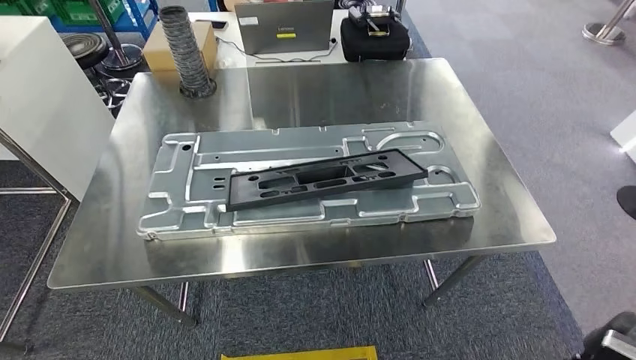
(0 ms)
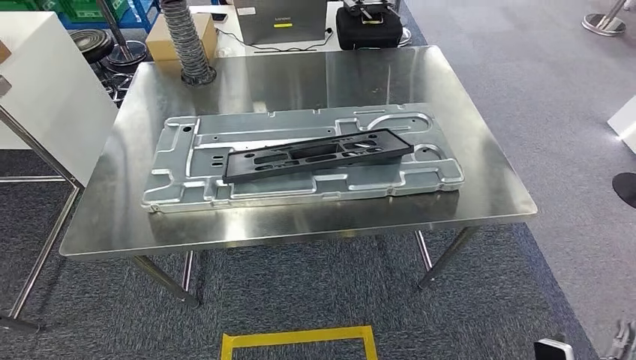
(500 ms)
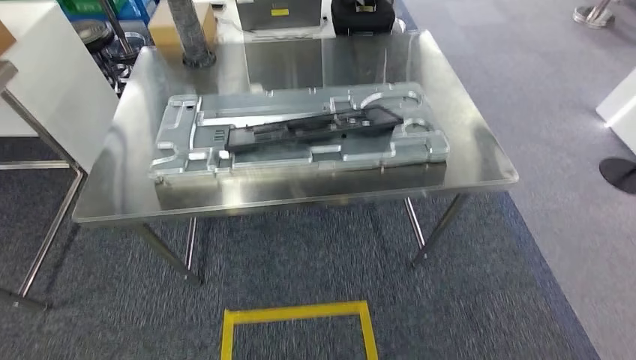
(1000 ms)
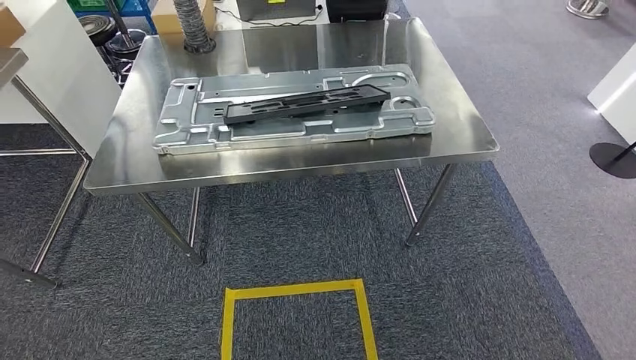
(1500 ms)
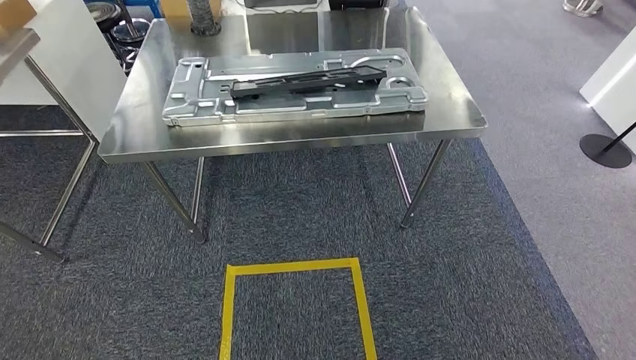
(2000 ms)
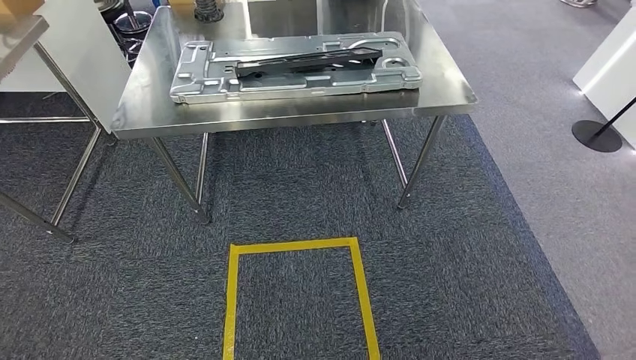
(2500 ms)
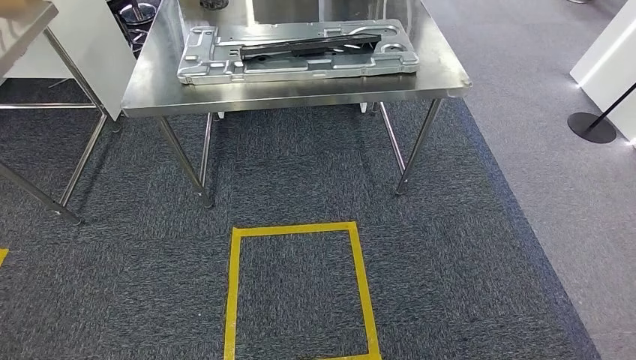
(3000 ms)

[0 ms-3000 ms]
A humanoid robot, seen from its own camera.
Step, 0 ms to 3000 ms: Return to the initial position at the workbench.

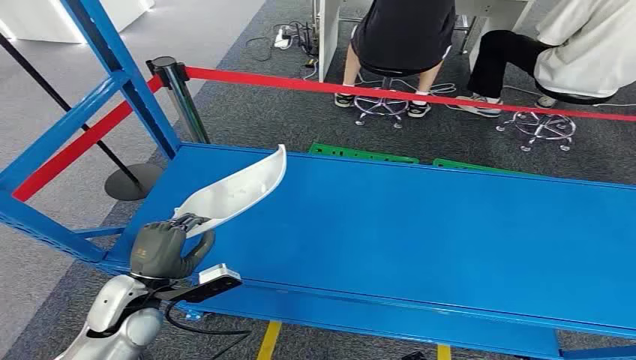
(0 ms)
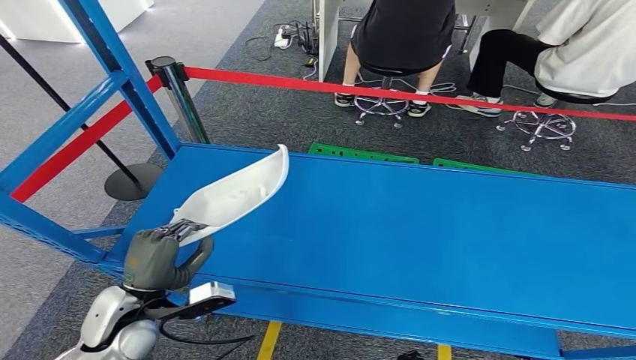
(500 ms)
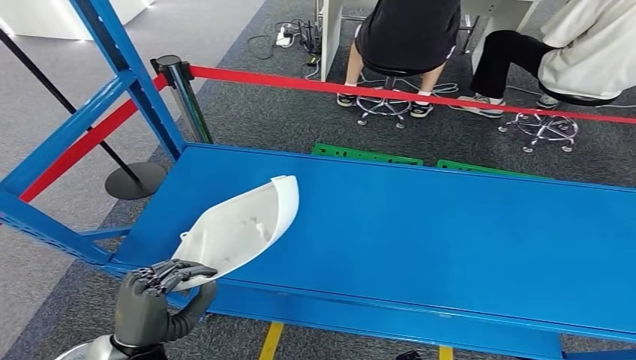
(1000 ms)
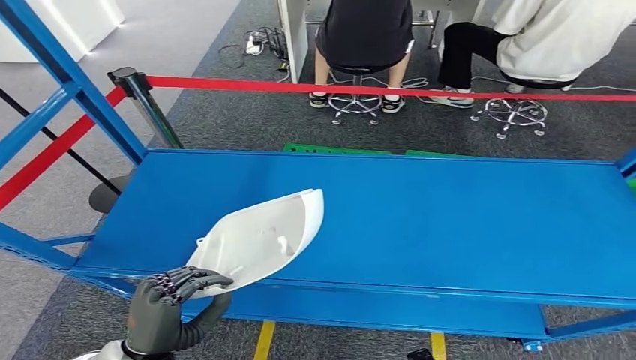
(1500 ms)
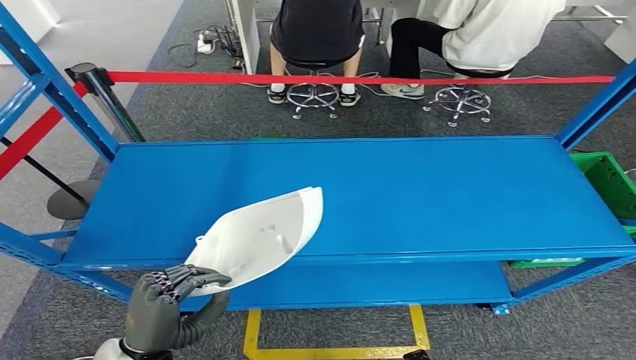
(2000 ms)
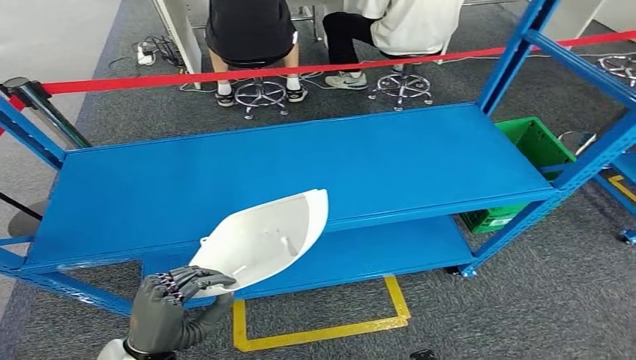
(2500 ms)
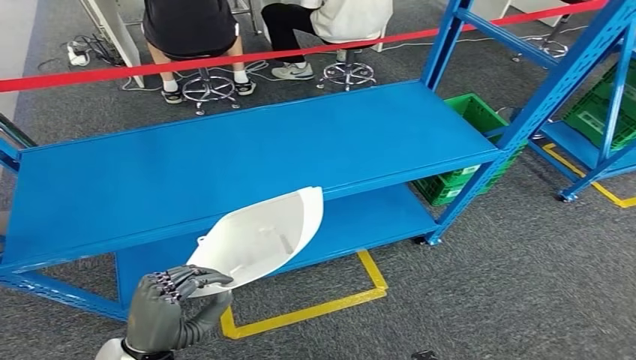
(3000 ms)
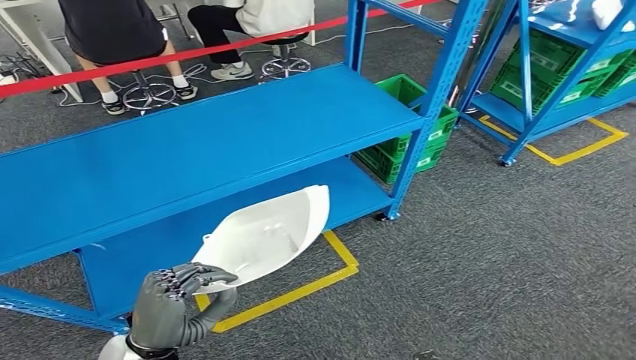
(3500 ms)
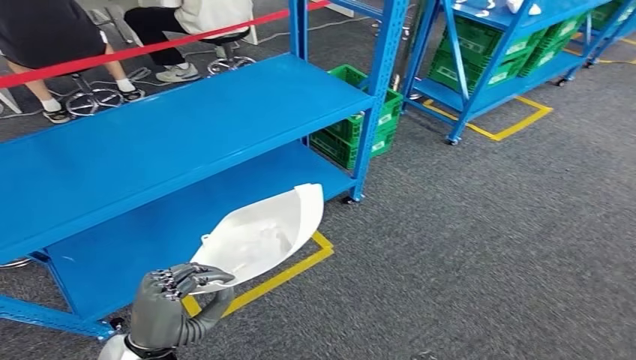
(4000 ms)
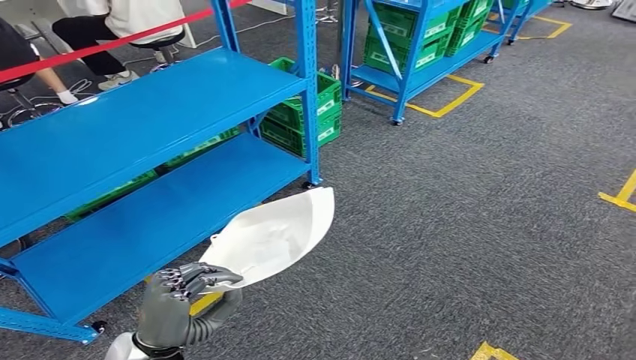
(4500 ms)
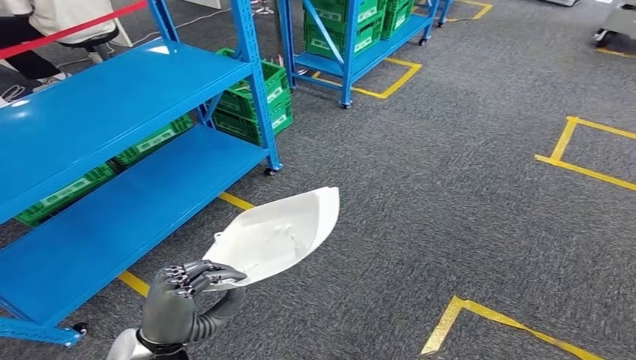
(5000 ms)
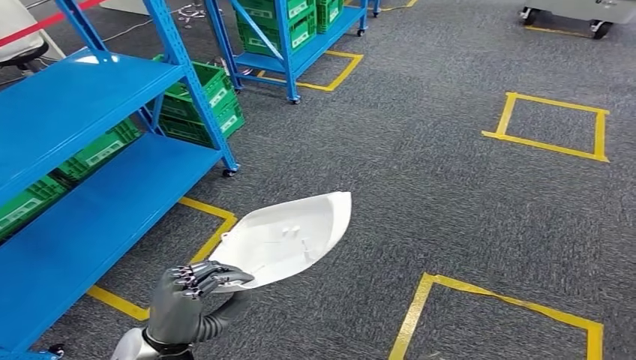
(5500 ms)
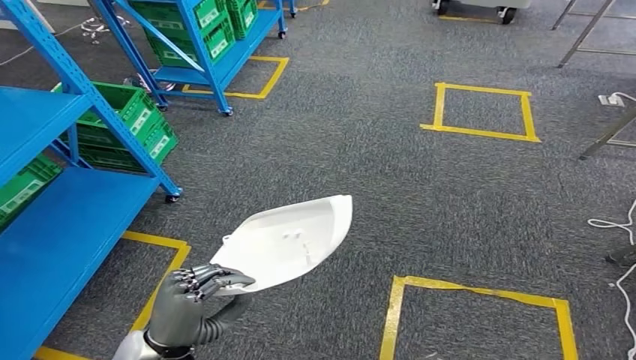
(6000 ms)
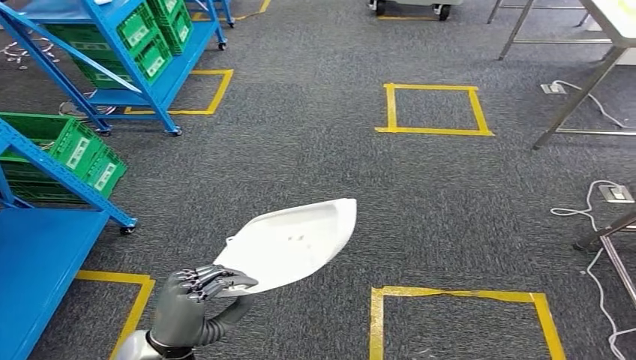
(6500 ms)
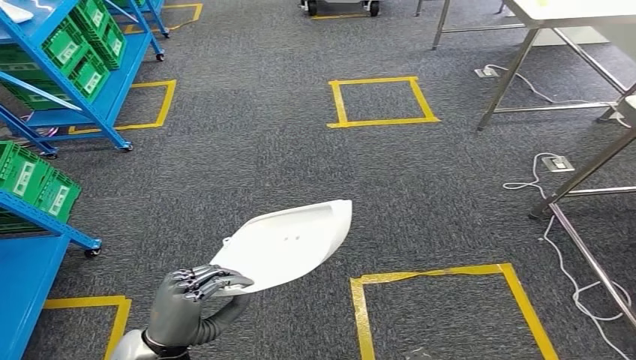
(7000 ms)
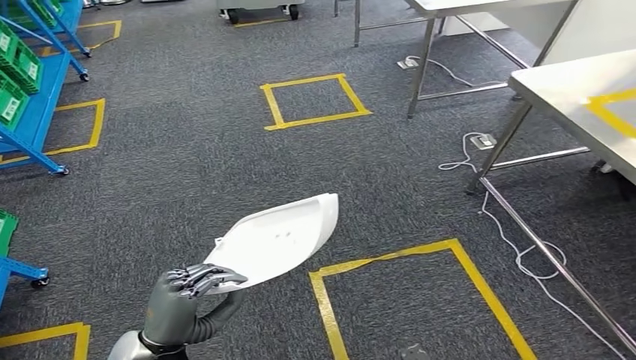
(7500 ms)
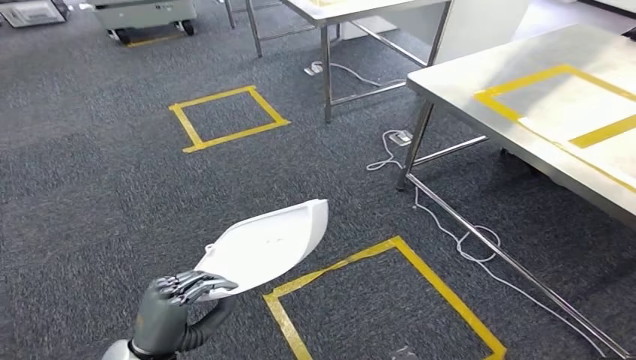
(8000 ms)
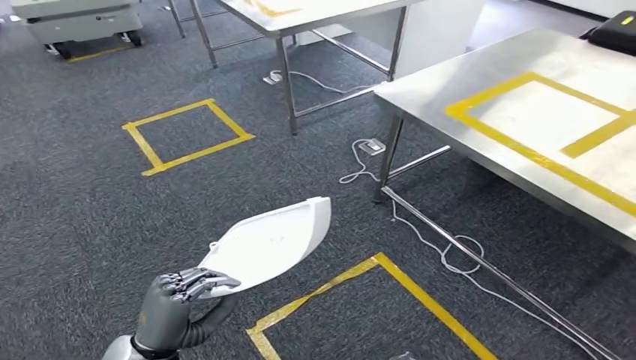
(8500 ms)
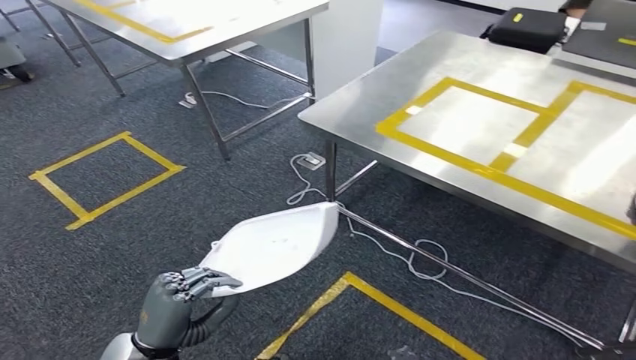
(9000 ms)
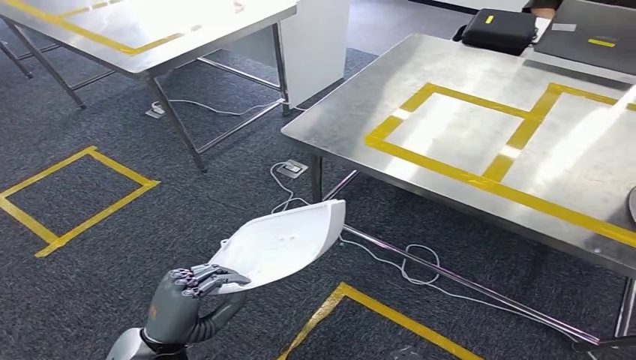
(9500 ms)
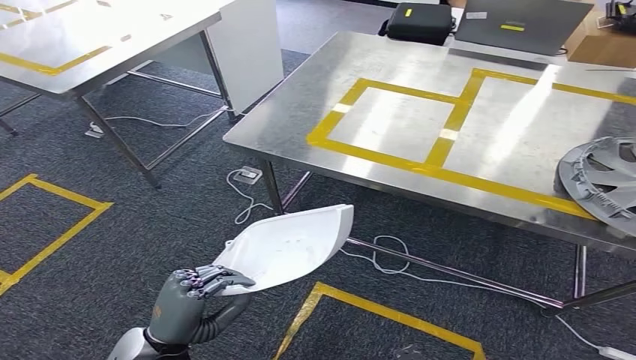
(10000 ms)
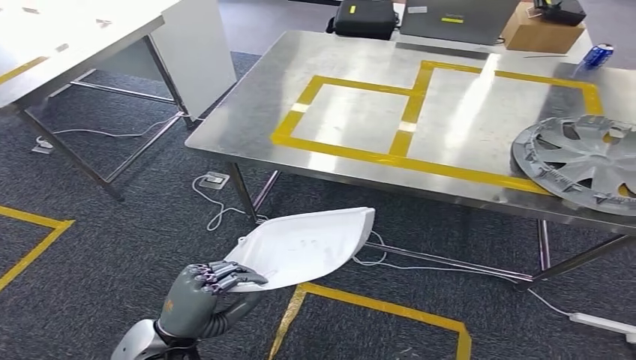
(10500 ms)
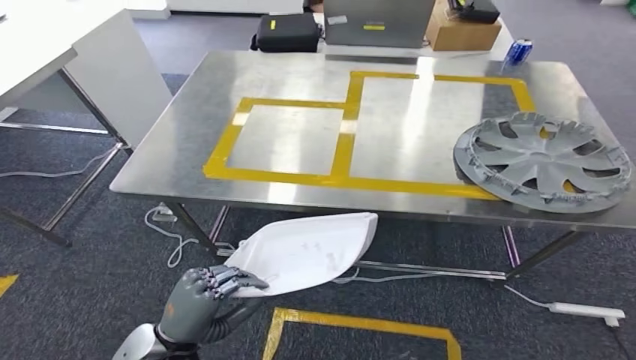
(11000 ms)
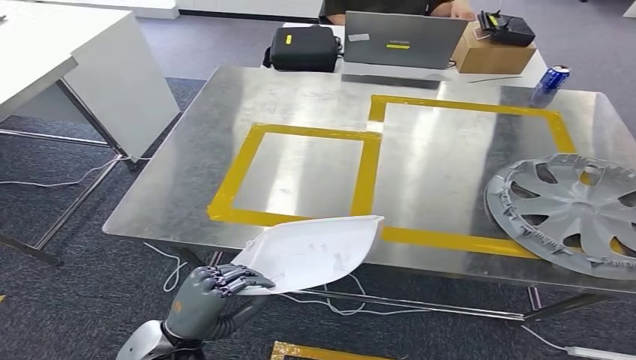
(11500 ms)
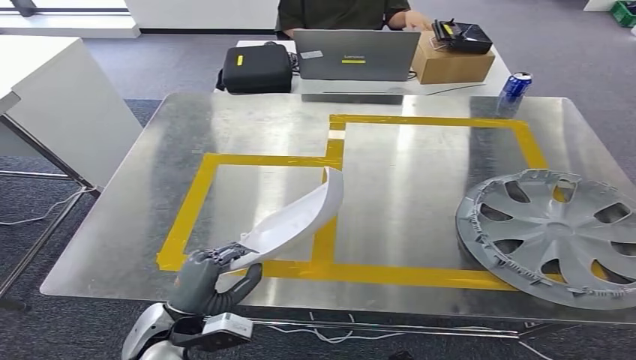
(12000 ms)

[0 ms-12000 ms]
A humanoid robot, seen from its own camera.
Step, 0 ms to 1500 ms: Pick up the small component from the shelf.
Step, 2000 ms to 11000 ms: Move the small component to the workbench.

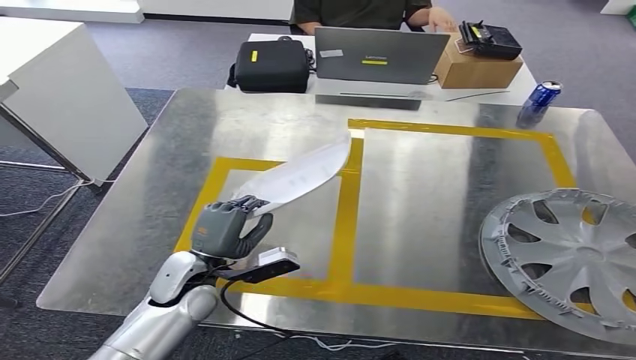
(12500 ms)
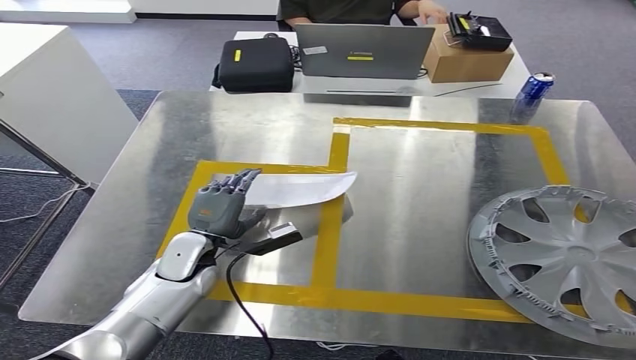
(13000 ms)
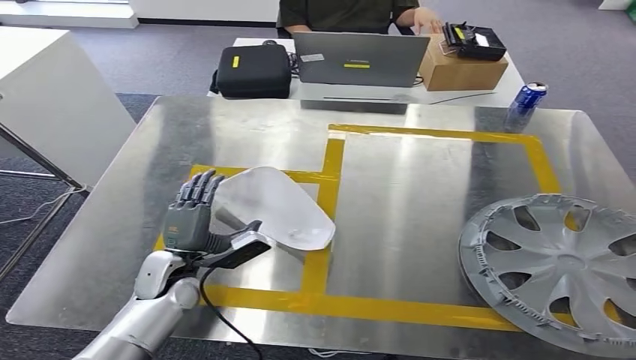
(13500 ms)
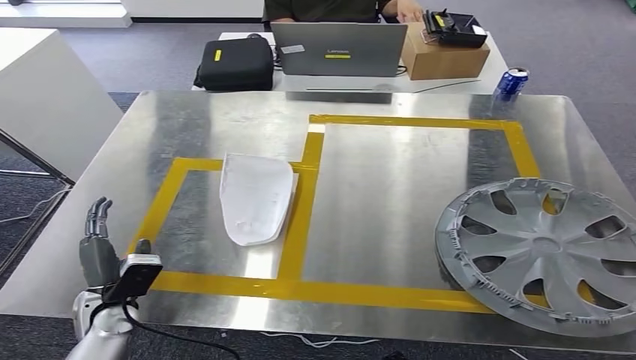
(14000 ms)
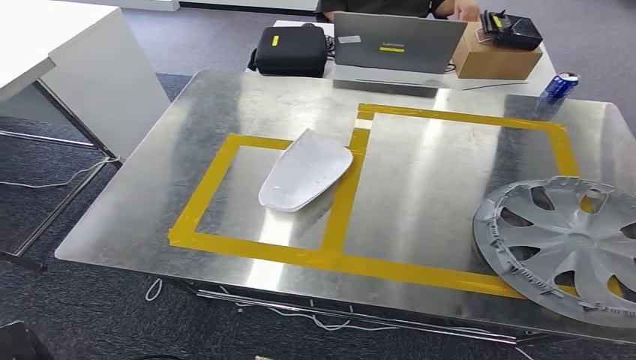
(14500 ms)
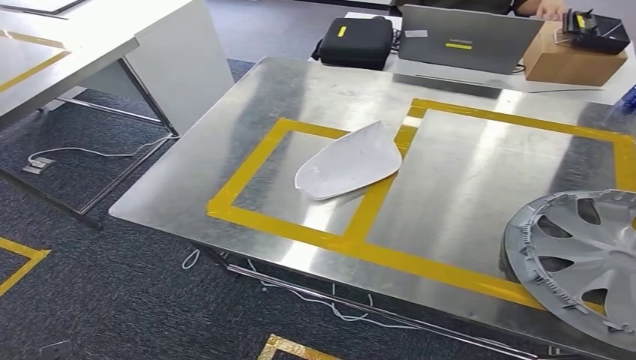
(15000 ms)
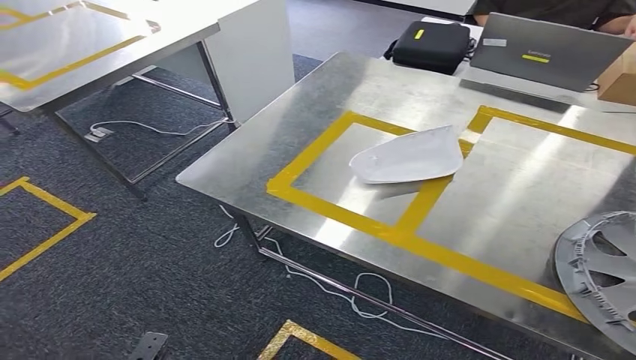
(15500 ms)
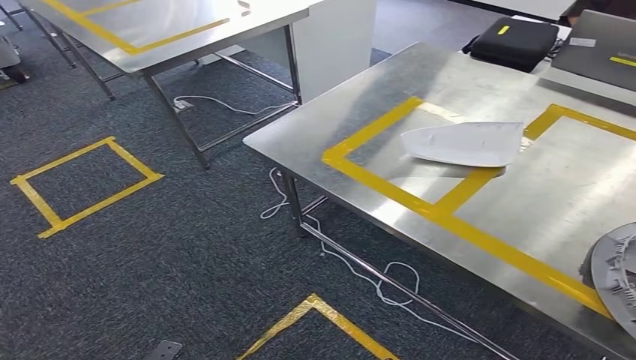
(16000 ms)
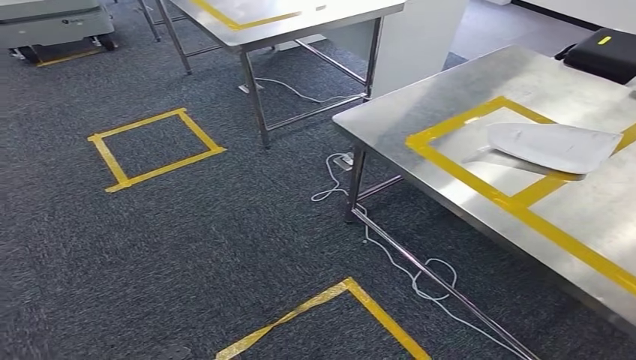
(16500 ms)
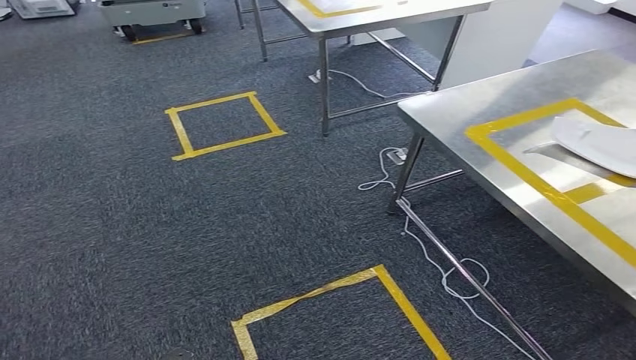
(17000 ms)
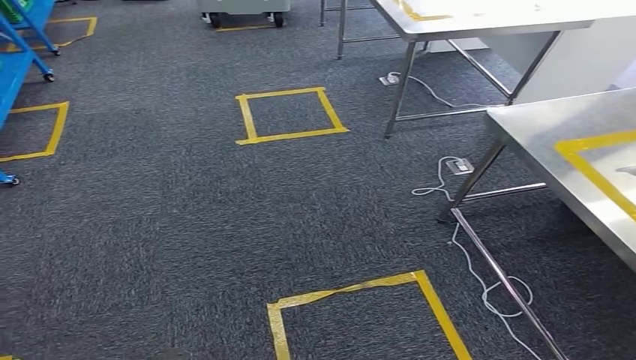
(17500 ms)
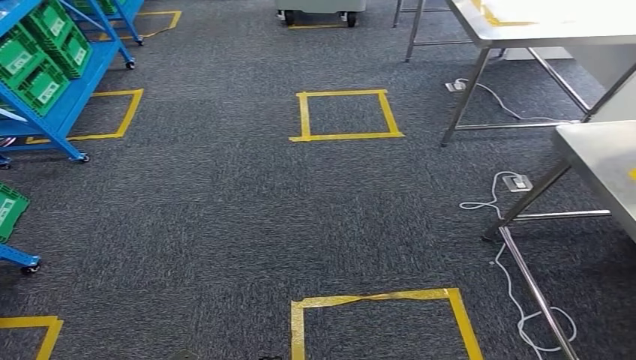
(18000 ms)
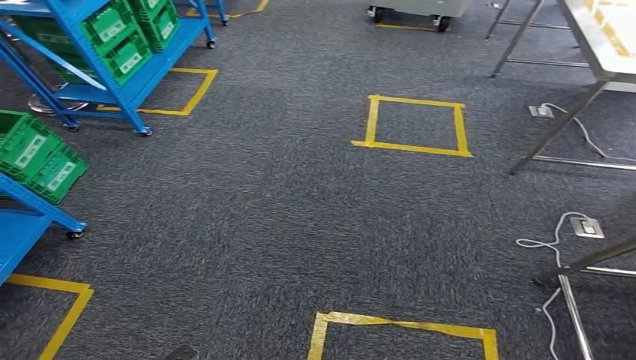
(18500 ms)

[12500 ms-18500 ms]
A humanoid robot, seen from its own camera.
Step, 12500 ms to 15000 ms: Insert the small component into the corresponding slot on the workbench.
